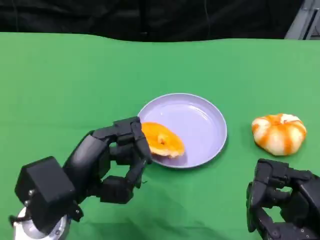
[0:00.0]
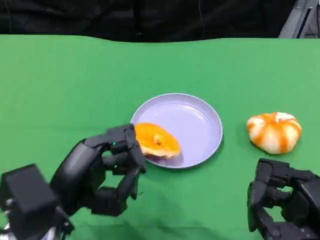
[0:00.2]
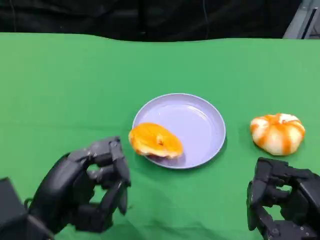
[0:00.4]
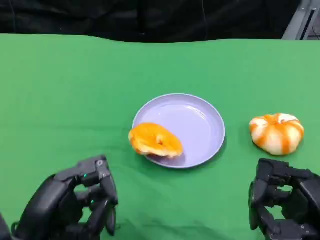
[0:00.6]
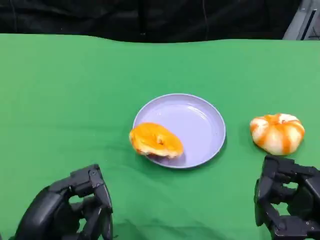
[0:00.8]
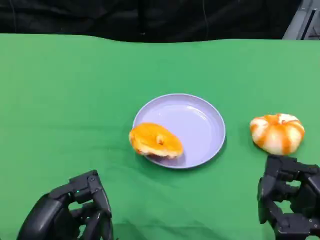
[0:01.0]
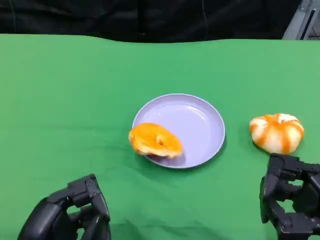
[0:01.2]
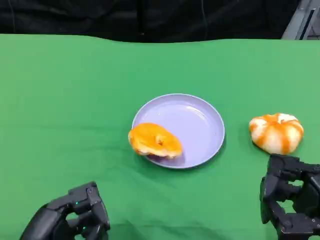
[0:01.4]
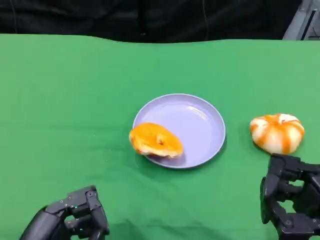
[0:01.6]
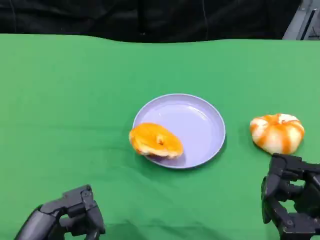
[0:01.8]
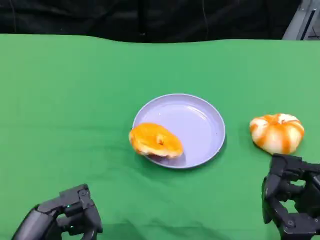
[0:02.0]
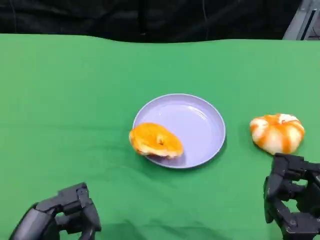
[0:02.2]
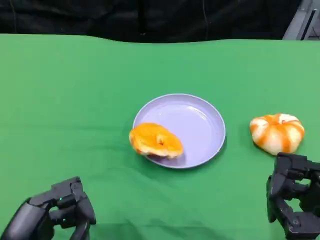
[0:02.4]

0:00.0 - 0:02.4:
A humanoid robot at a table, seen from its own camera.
Task of the whole recording: Grasp the bread from the table and place it into the plate.
0:00.0 - 0:01.2: The left hand is displaced backward by about 10 cm.
0:01.2 - 0:02.4: There are only small adjustments of the hands.

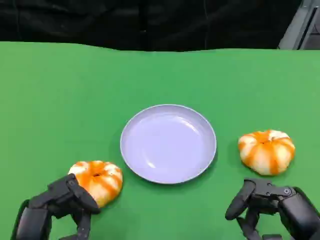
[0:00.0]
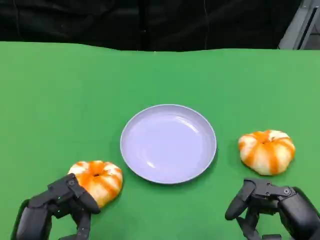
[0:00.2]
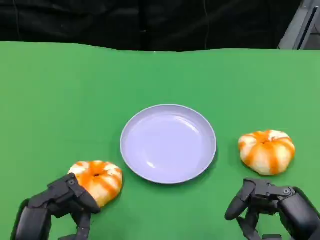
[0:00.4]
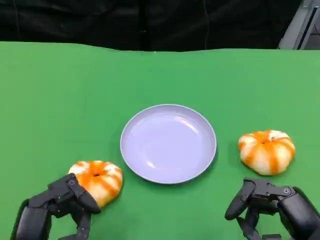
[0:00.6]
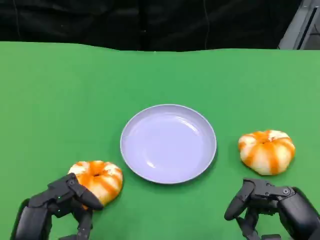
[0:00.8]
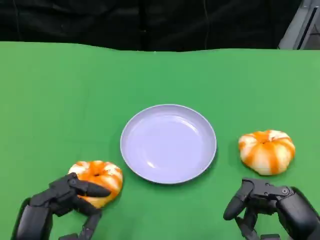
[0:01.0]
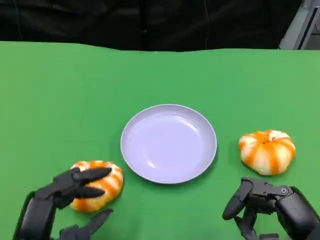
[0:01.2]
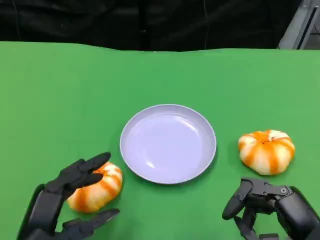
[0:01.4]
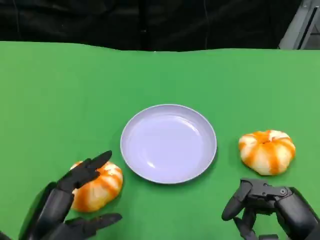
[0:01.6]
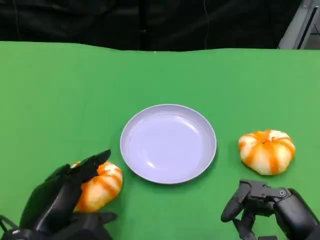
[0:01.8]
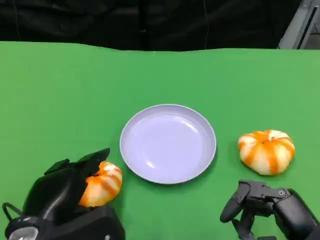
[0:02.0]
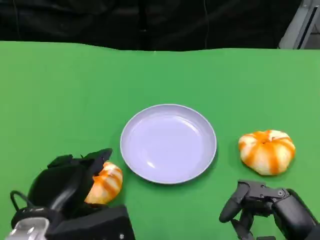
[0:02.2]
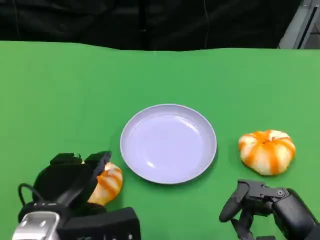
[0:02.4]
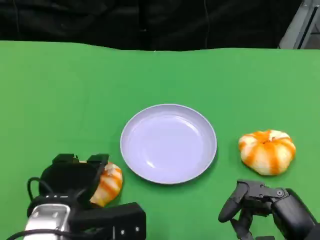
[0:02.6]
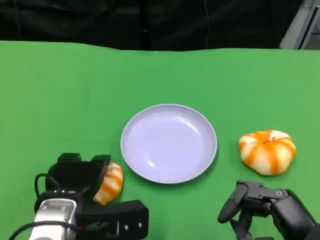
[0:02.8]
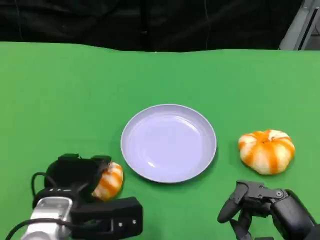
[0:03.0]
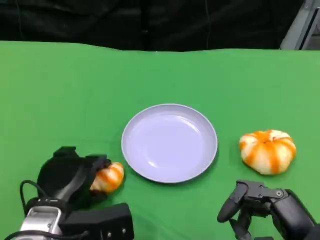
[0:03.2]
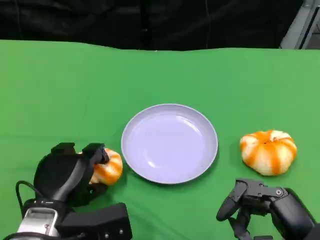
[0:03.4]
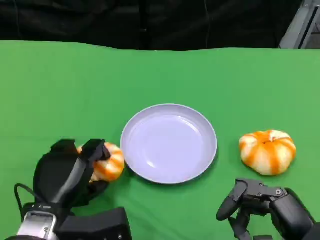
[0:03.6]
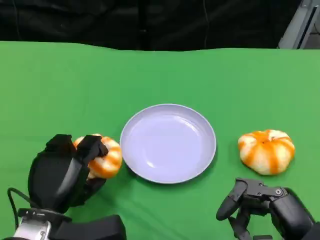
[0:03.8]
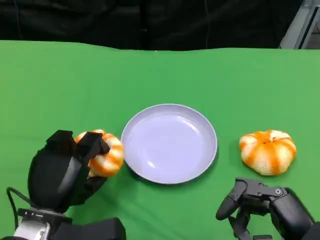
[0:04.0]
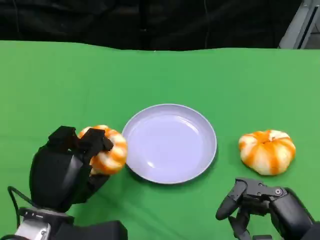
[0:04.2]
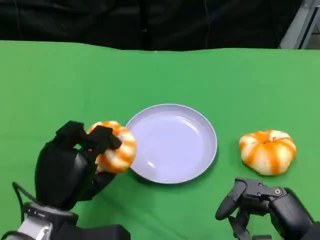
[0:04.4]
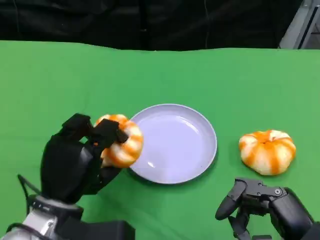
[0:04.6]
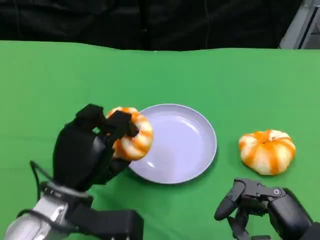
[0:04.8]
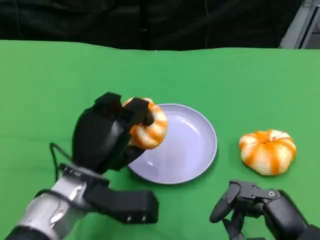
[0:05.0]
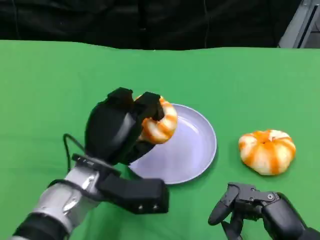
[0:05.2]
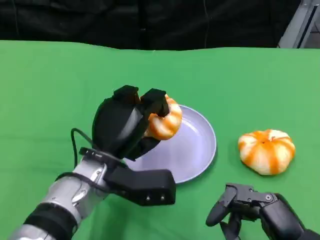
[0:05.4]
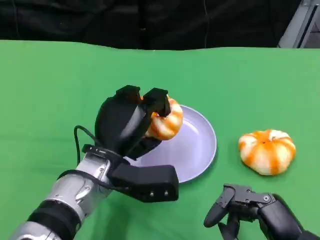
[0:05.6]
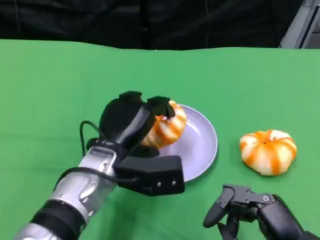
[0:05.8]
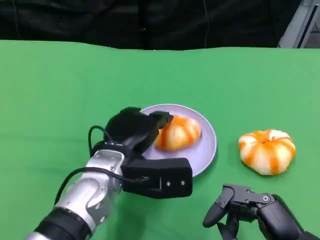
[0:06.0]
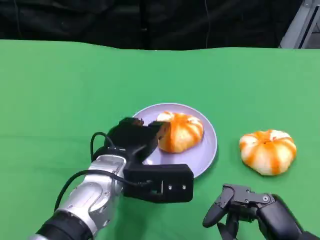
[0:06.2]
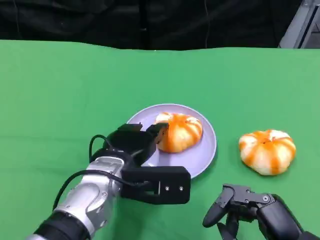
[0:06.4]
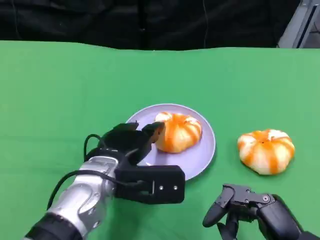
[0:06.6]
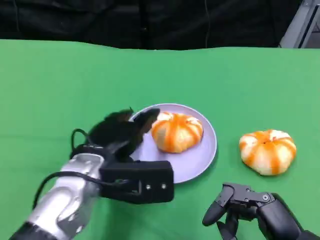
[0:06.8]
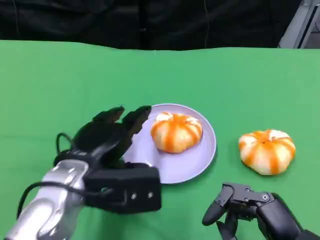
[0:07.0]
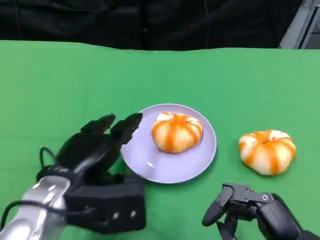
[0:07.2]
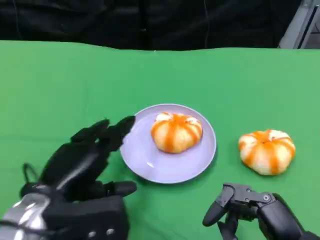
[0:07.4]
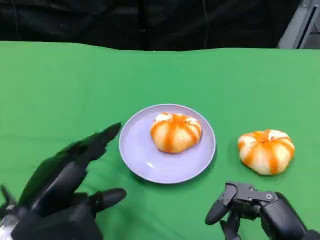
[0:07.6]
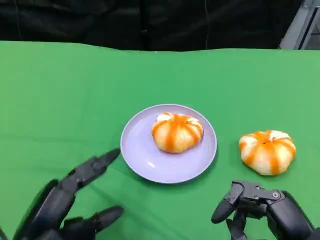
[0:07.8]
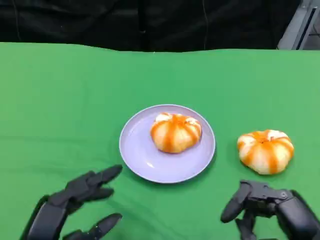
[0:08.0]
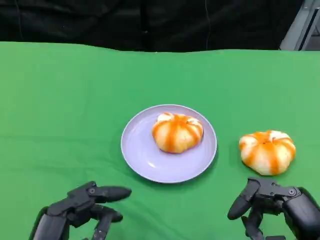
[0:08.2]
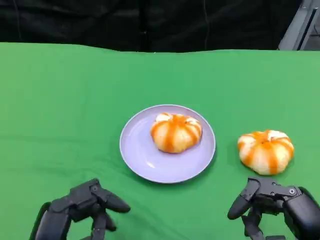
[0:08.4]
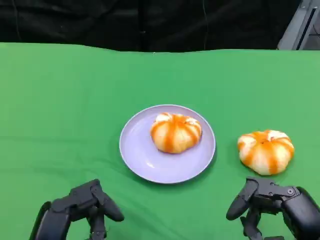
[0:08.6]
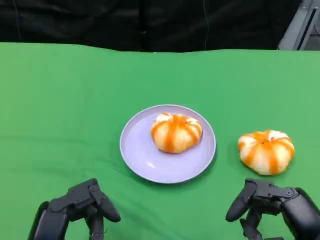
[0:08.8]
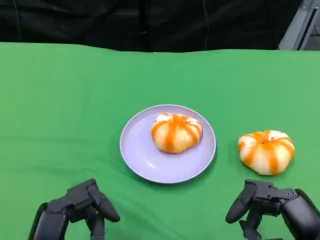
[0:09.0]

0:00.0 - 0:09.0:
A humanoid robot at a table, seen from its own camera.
Task of the whole recording: Grasp the bread from the table and place it into the plate.
0:01.6 - 0:03.0: The left hand moves forward, approximately 5 cm.
0:04.4 - 0:06.0: The left hand travels to the right and forward by approximately 10 cm.
0:06.0 - 0:07.6: The left hand moves to the left and backward, approximately 15 cm.
0:07.6 - 0:09.0: The left hand goes about 5 cm backward.
